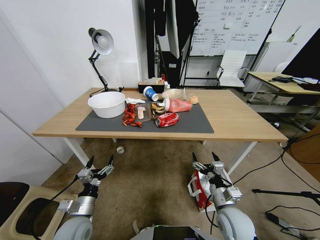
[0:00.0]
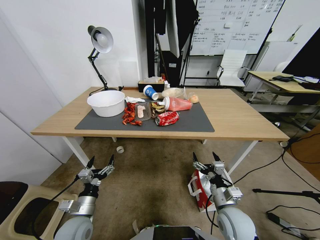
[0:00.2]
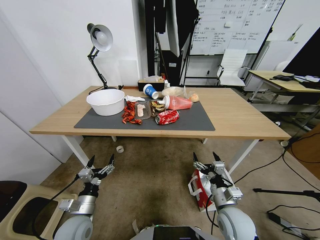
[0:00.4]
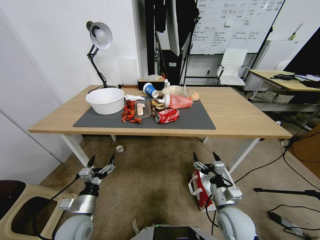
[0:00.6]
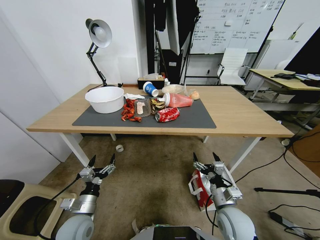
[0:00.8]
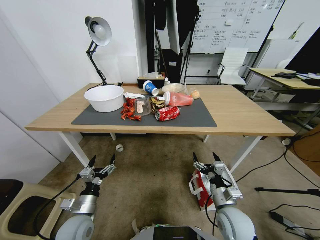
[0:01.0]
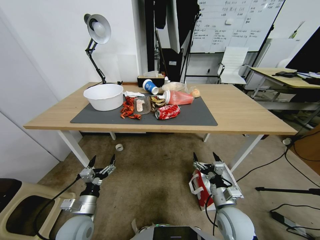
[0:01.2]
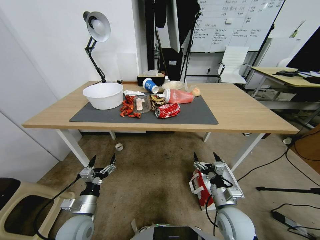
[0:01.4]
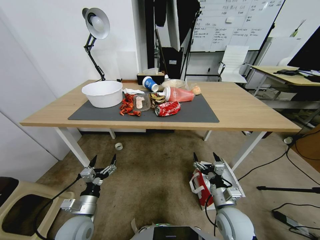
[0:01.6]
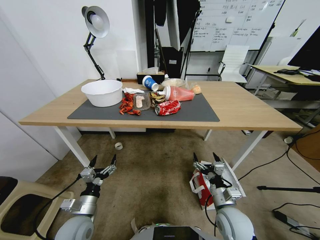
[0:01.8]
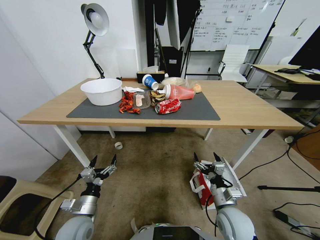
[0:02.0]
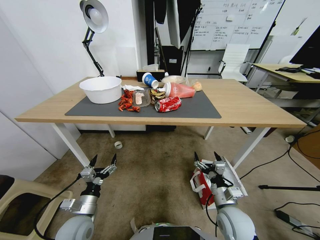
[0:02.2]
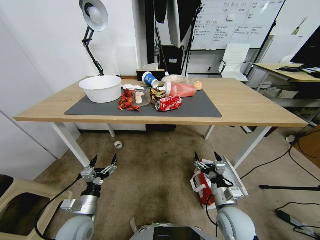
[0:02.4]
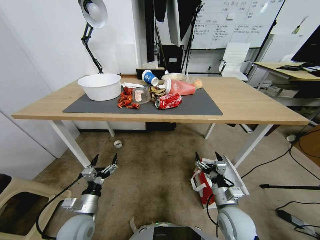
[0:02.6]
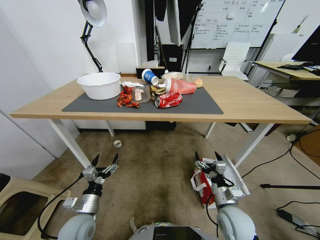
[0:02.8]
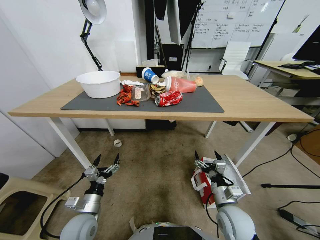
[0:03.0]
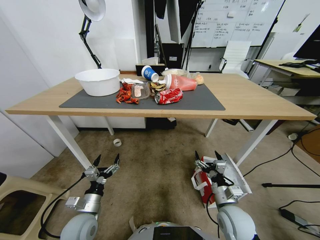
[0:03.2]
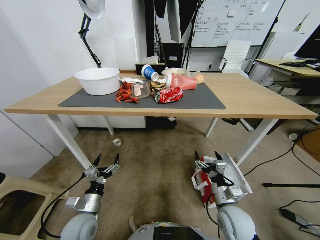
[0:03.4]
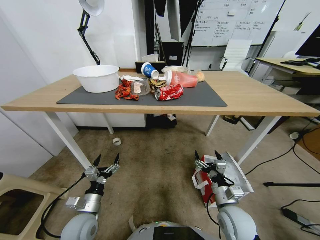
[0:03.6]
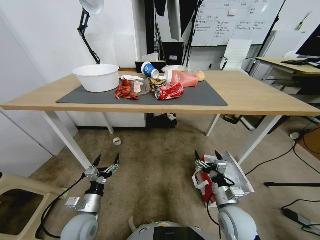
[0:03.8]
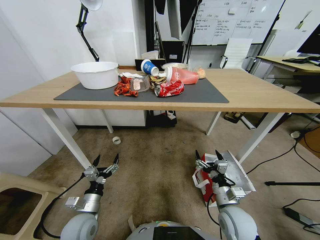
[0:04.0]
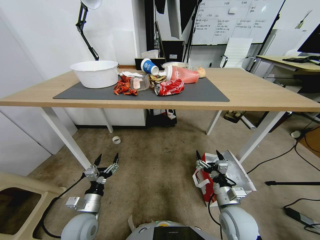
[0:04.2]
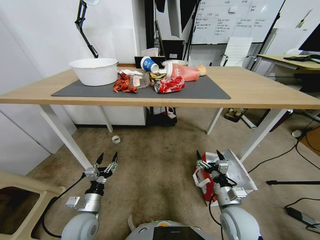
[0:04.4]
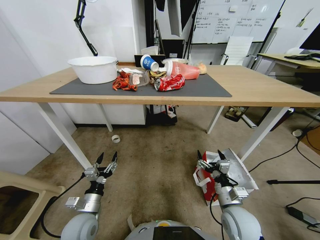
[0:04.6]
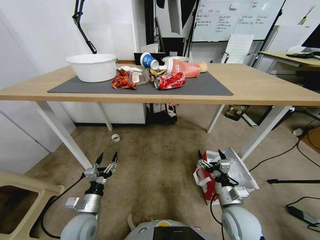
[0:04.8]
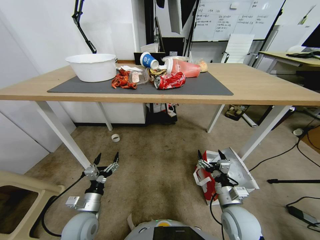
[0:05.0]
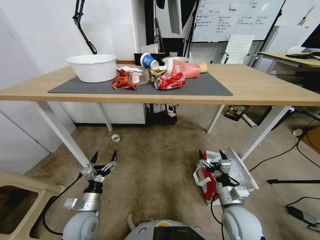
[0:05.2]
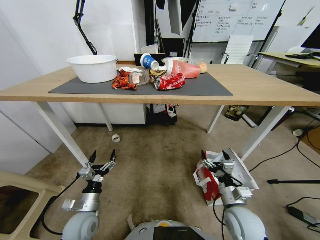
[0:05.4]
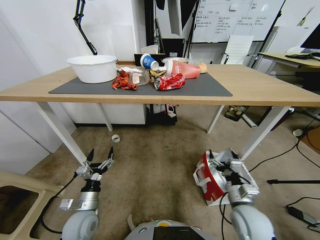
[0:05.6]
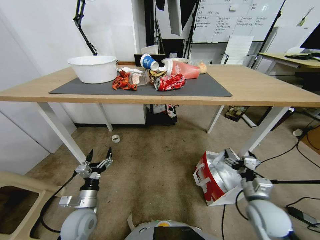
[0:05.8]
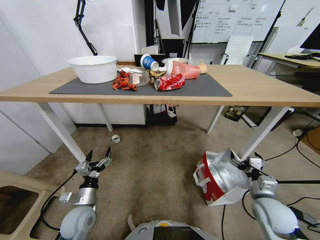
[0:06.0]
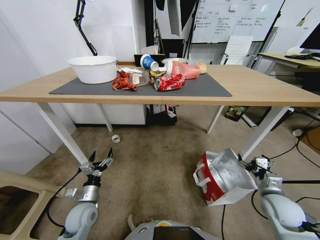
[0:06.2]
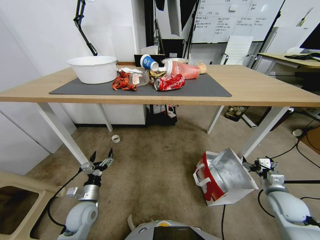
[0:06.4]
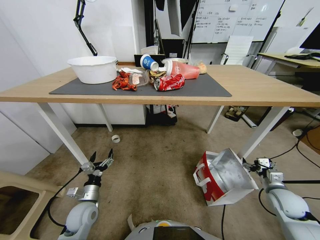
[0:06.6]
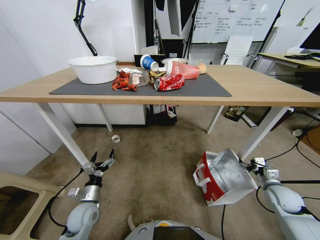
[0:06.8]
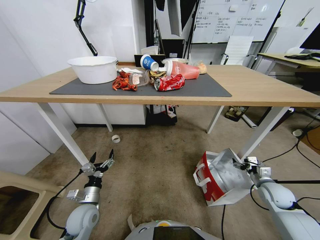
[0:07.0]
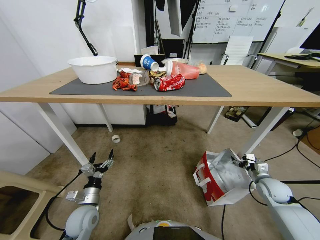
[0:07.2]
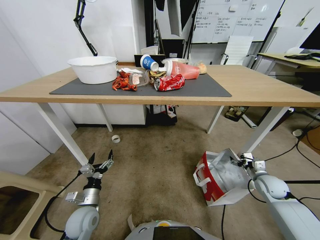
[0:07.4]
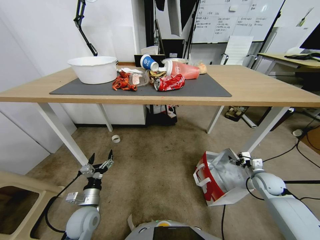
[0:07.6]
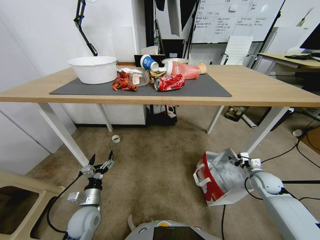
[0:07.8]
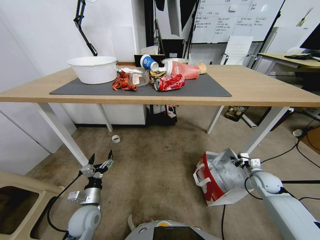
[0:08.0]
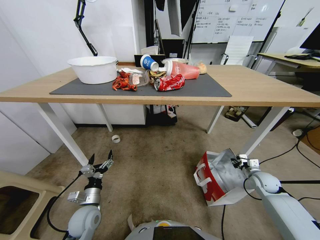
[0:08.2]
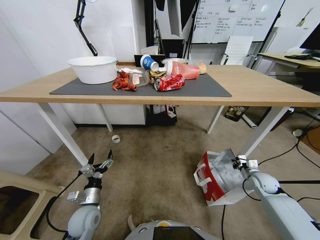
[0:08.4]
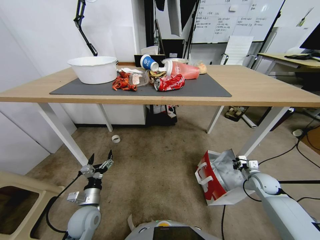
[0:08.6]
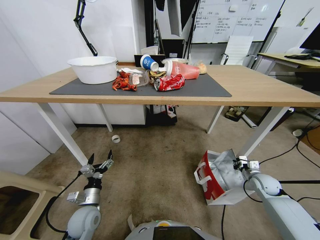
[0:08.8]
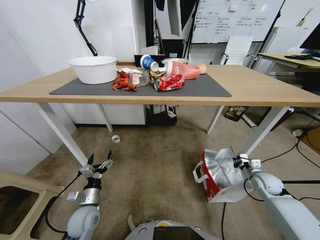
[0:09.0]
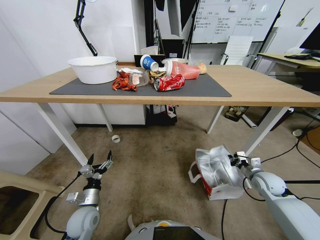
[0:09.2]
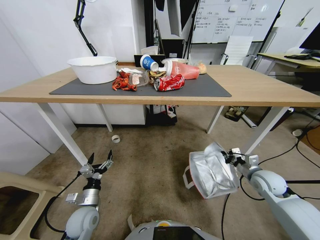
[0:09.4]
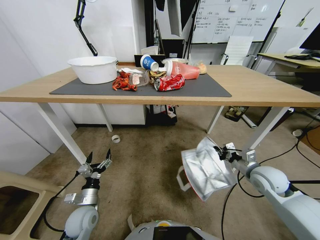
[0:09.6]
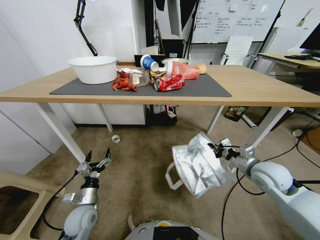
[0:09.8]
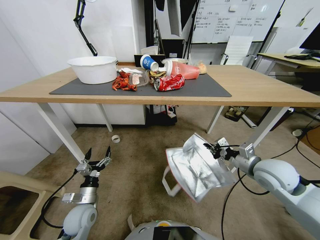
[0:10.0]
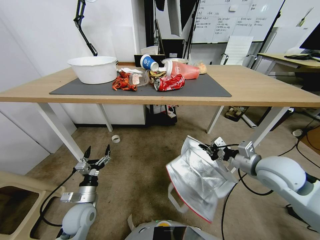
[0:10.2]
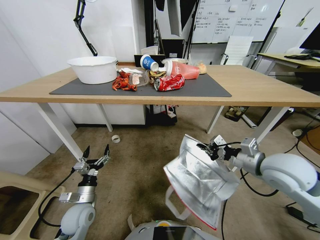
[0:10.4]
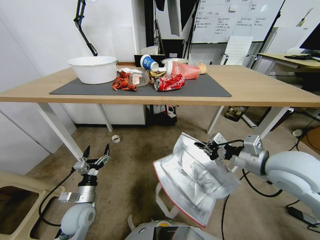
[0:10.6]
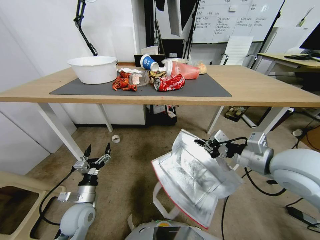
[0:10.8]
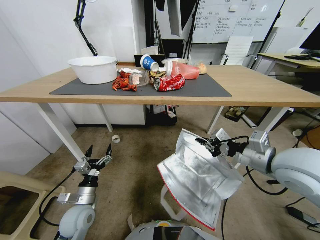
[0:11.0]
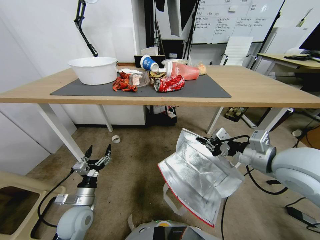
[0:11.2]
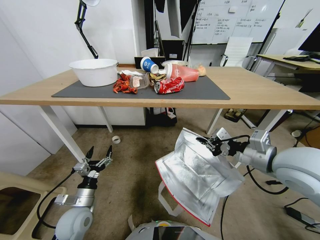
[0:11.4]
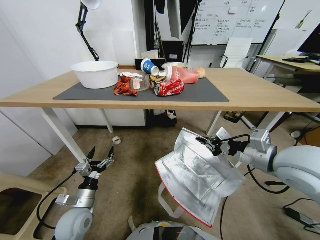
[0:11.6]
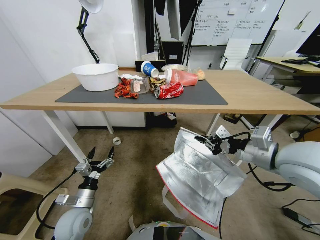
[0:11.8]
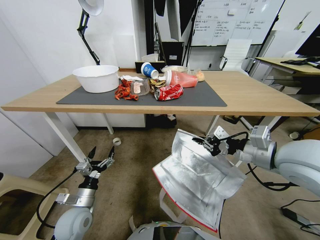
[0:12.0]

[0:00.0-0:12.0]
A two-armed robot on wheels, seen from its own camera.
Task of the whole recording: Pick up the food delivery bag from the floor and place it on the table.
0:04.4 to 0:06.0: The right gripper goes about 15 cm to the right.
0:06.0 to 0:07.6: The right gripper shifts about 15 cm forward, to the right and downward.
0:07.6 to 0:09.0: The right gripper closes its fingers.
0:09.0 to 0:10.4: The right gripper travels upward and to the left by about 30 cm.

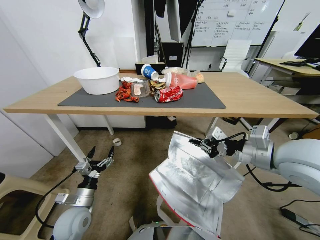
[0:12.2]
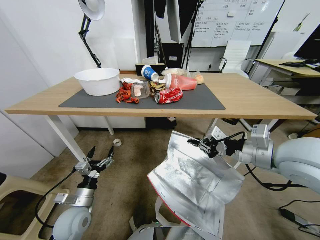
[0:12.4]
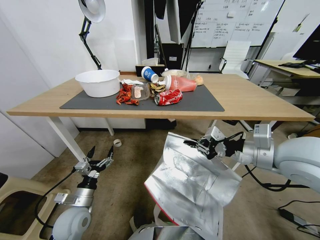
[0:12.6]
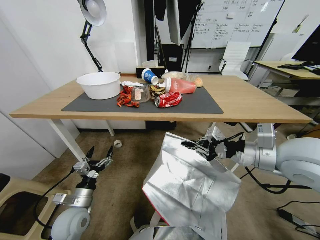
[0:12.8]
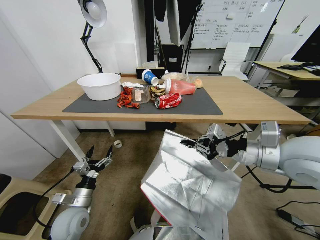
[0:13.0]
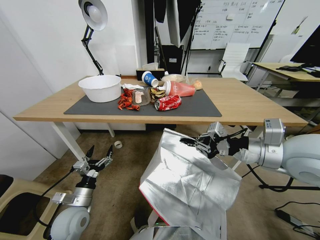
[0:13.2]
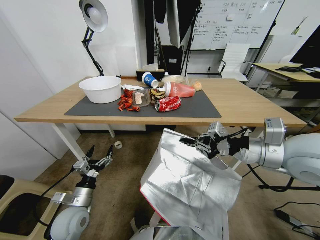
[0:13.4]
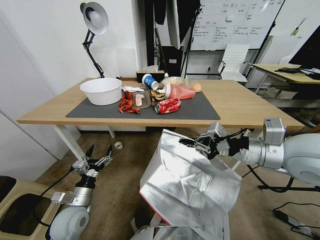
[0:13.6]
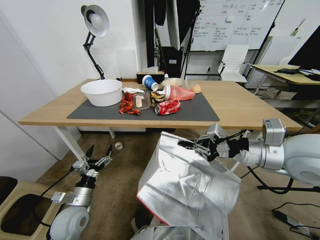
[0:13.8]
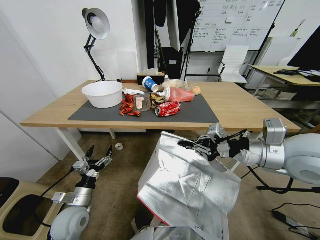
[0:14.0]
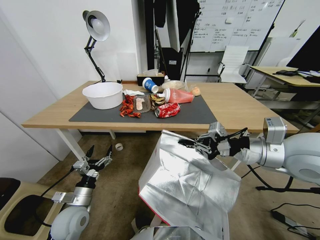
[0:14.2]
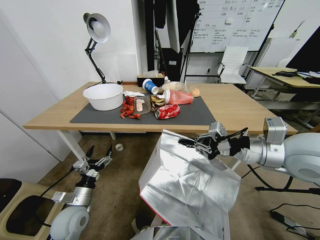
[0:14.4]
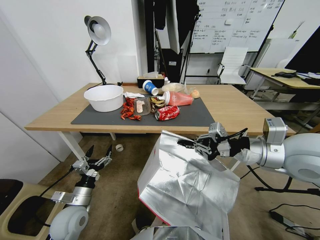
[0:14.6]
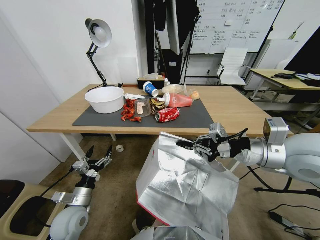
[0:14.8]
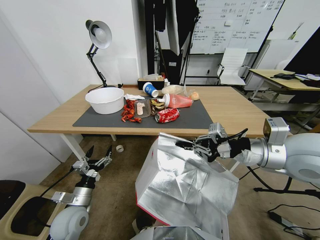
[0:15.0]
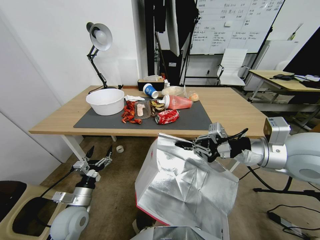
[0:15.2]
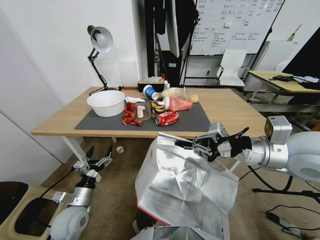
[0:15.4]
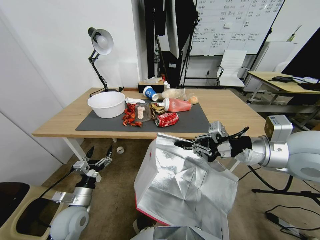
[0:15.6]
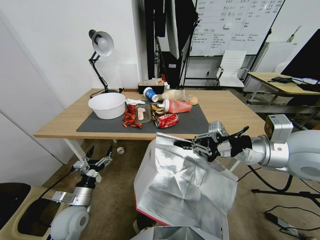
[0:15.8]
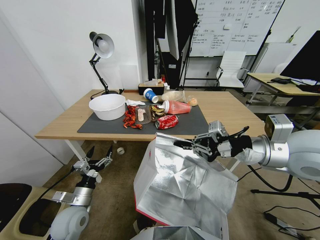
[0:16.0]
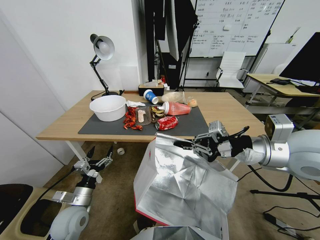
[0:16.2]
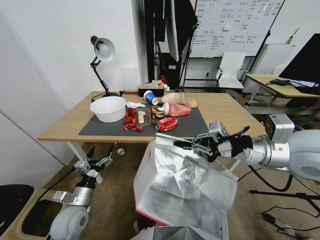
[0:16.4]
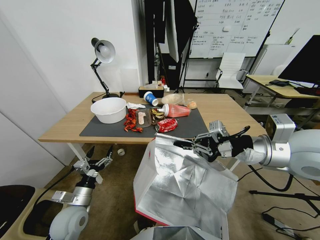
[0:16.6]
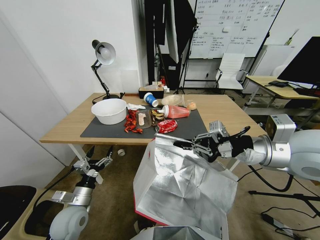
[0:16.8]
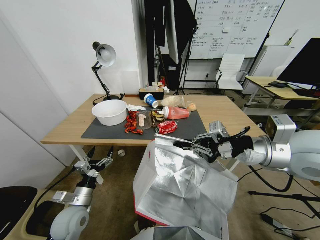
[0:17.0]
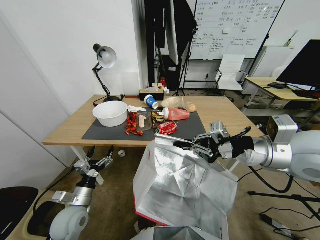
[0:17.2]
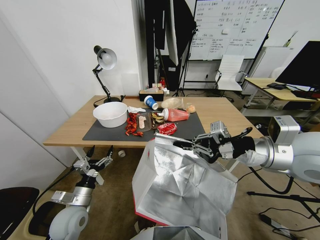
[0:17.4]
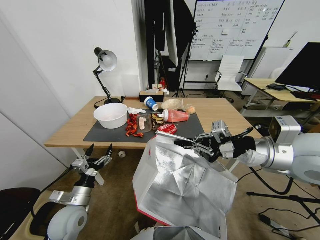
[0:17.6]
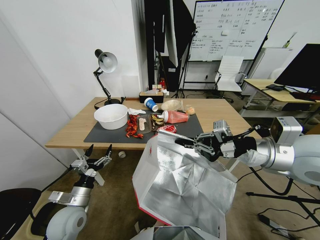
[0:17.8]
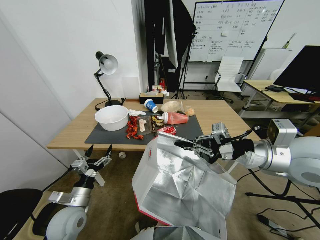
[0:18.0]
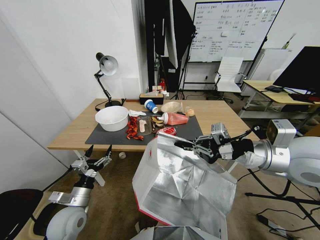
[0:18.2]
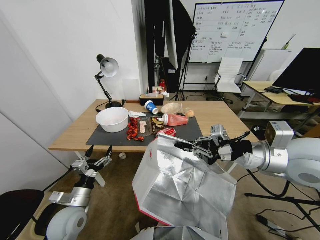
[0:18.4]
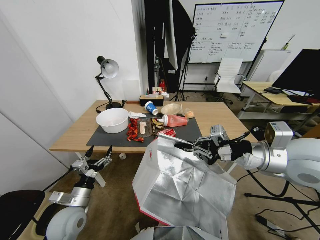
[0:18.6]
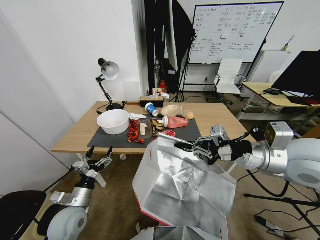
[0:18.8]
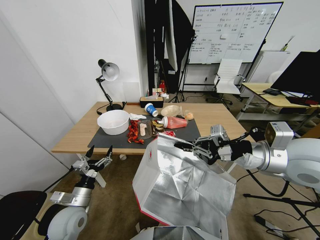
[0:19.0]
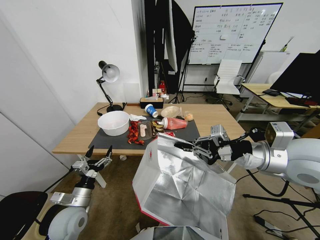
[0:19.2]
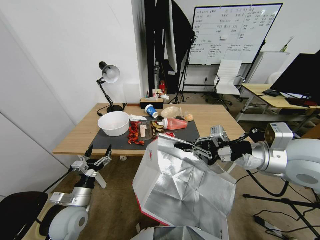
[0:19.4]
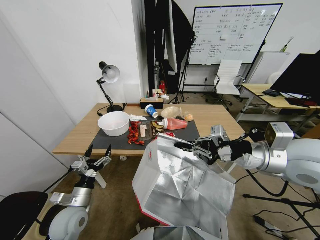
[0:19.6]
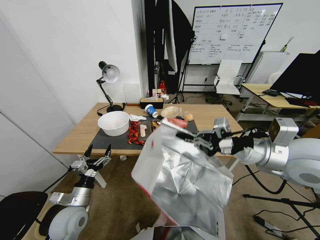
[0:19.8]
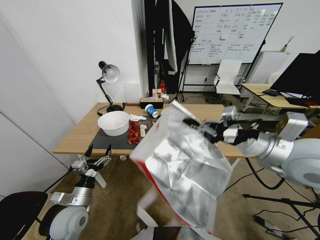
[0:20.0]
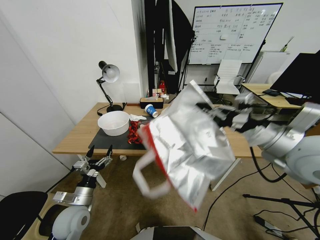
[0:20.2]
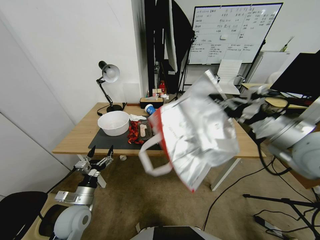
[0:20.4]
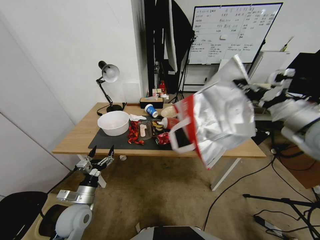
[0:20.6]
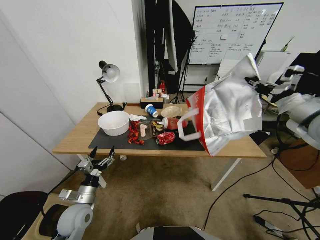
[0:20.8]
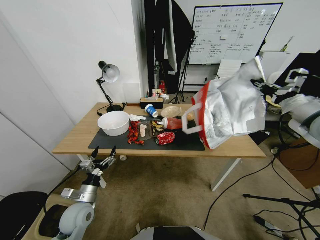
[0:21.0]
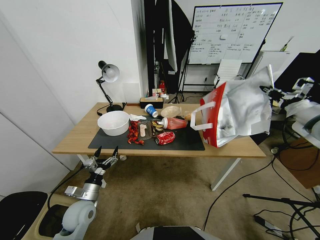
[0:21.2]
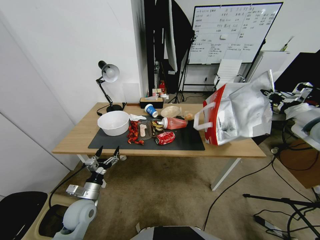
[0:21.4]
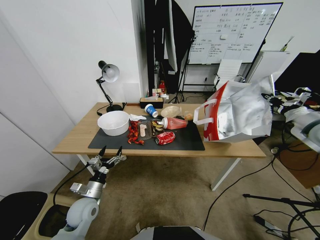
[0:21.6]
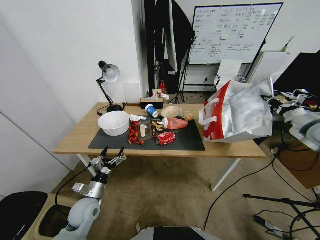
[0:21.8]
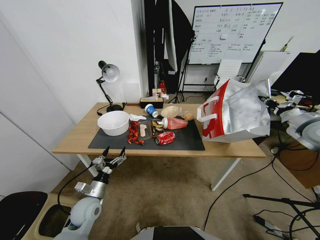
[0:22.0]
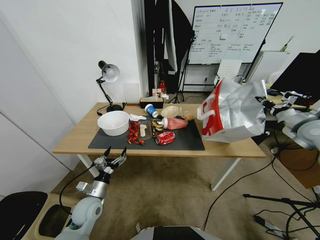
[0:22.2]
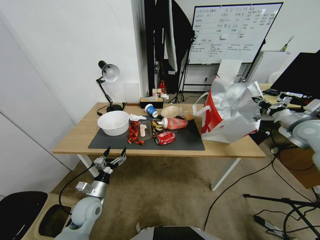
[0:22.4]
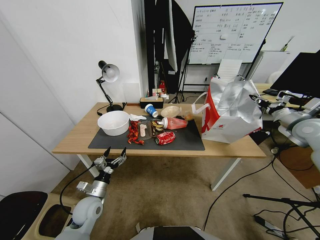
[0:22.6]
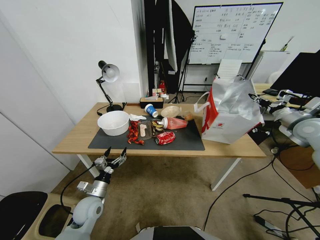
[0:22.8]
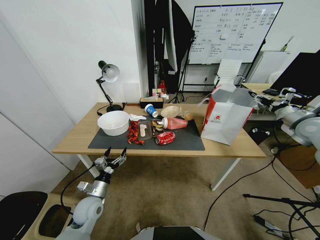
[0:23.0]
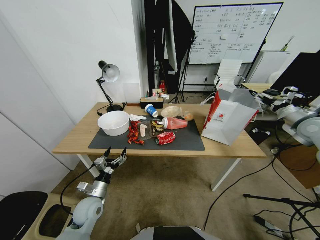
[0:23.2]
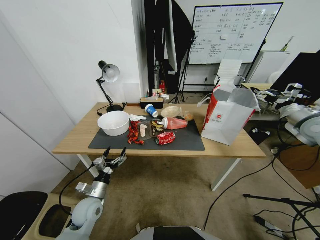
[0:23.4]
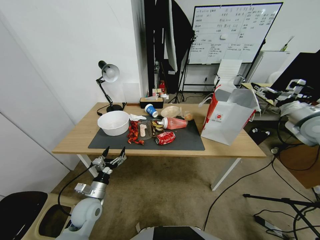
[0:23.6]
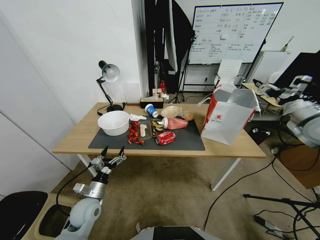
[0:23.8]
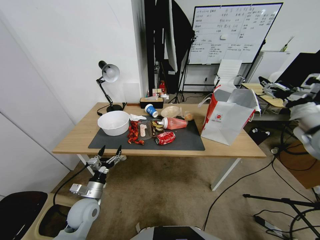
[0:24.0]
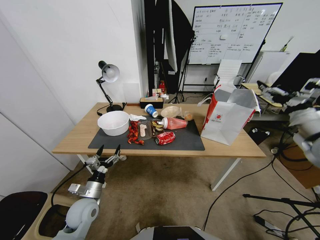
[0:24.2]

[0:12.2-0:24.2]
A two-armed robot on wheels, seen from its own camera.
Task of the whole recording: Pick up the food delivery bag from the floor and place it on the table.
0:19.8 to 0:21.2: The right gripper shifts about 20 cm to the right and forward.
0:21.2 to 0:22.6: The right gripper is displaced forward by some 5 cm.
0:22.6 to 0:24.2: The right gripper shifts roughly 20 cm backward and to the left, and opens its fingers.
